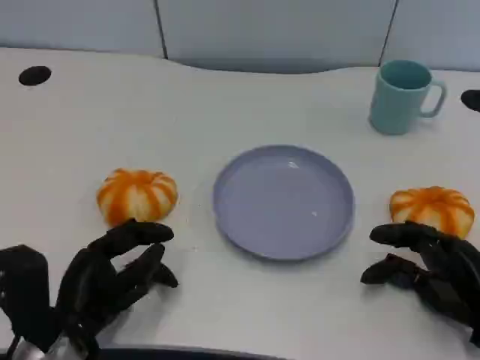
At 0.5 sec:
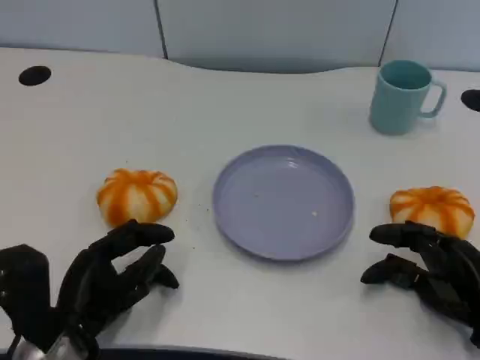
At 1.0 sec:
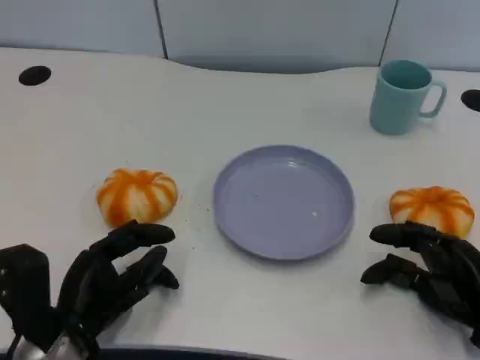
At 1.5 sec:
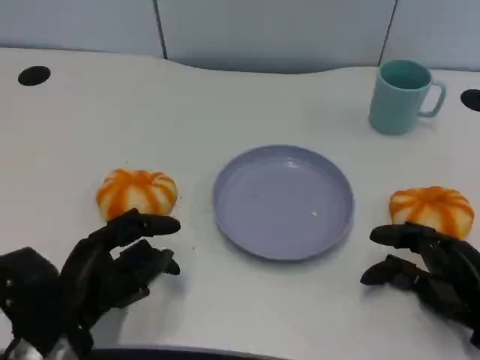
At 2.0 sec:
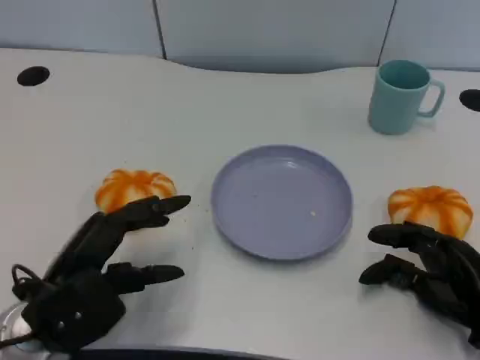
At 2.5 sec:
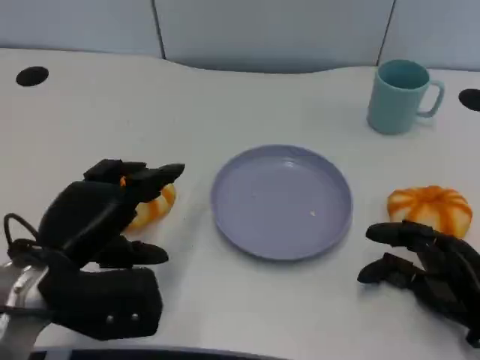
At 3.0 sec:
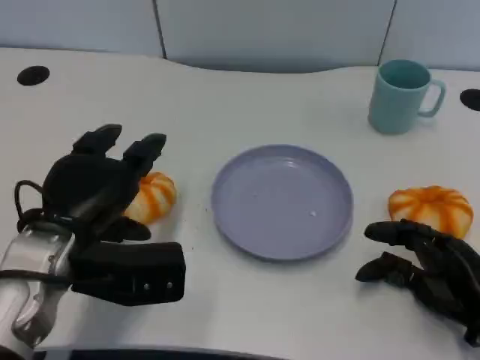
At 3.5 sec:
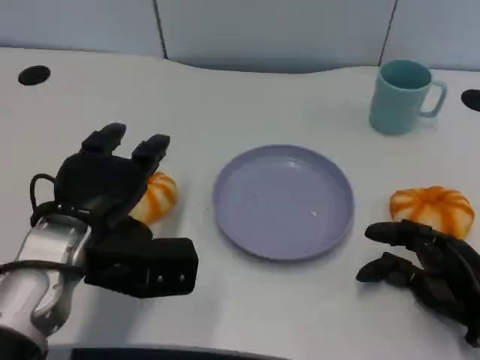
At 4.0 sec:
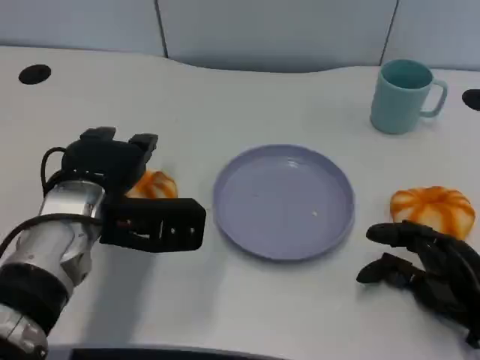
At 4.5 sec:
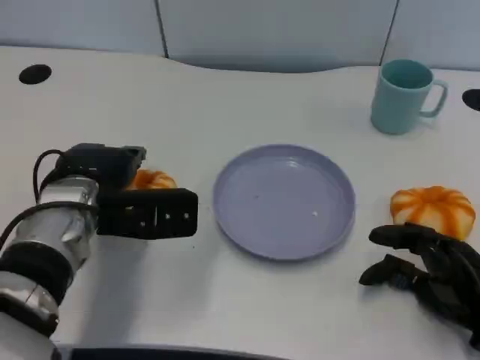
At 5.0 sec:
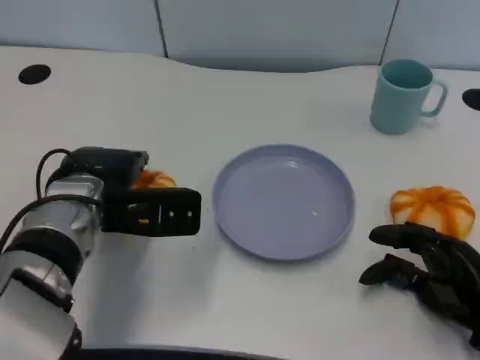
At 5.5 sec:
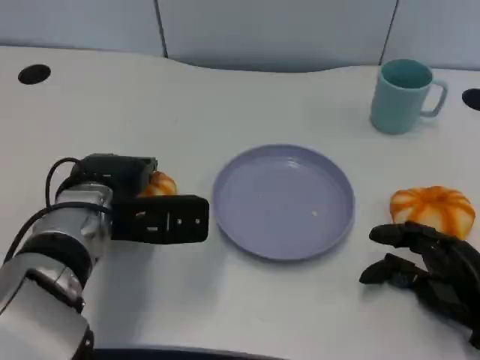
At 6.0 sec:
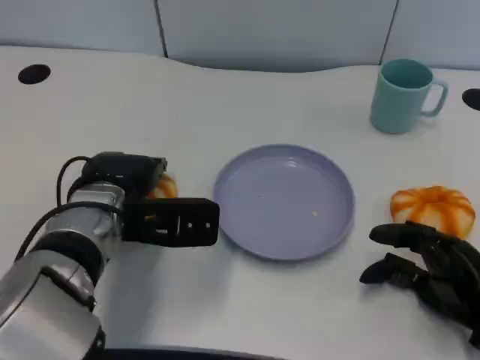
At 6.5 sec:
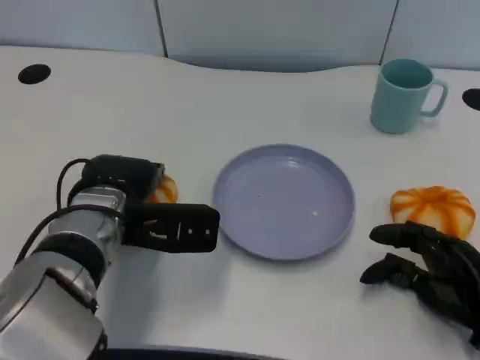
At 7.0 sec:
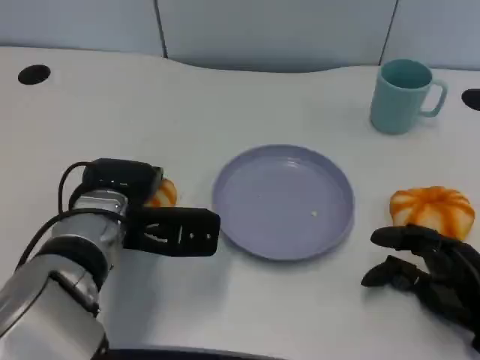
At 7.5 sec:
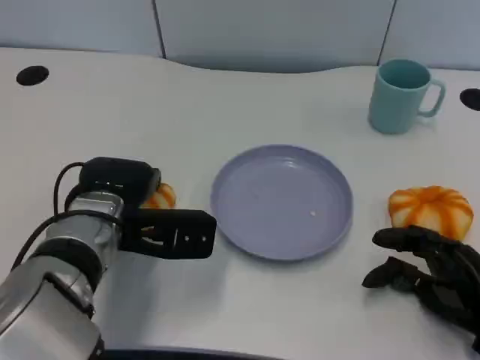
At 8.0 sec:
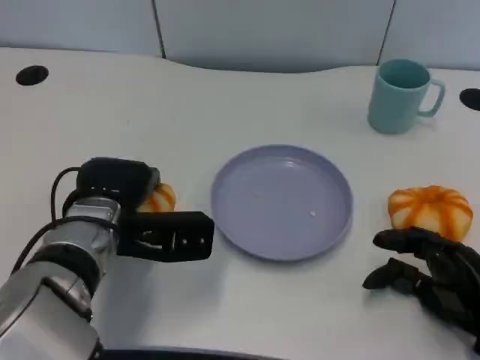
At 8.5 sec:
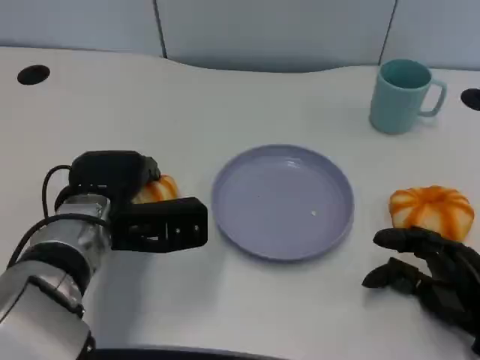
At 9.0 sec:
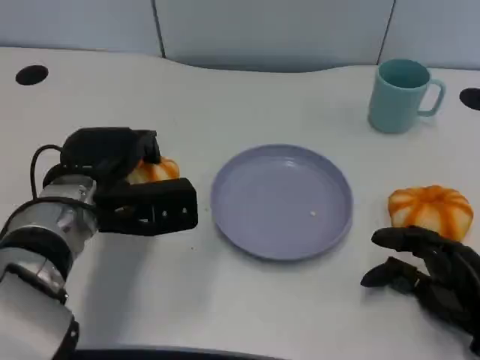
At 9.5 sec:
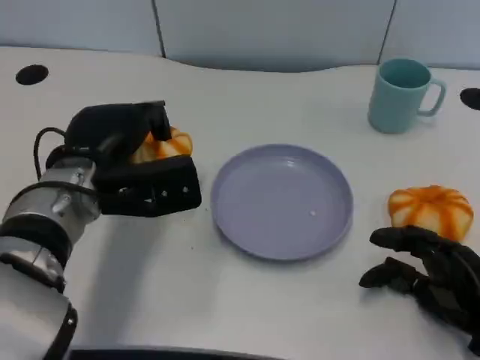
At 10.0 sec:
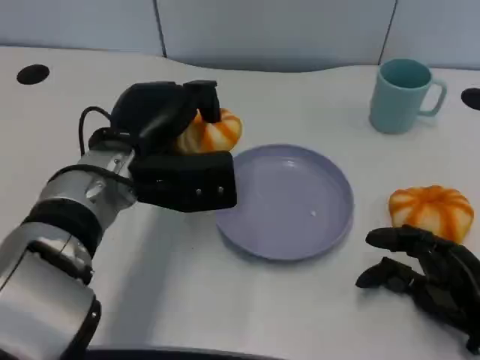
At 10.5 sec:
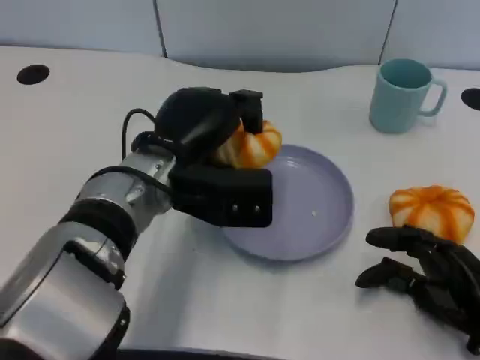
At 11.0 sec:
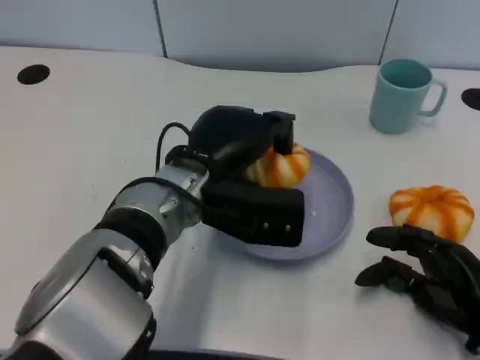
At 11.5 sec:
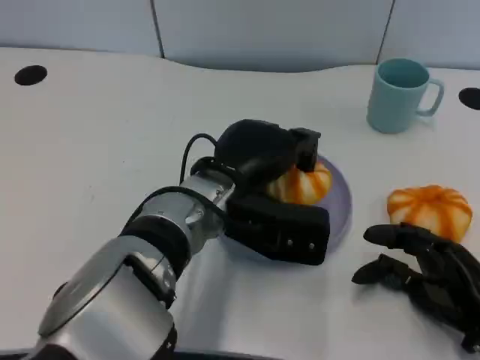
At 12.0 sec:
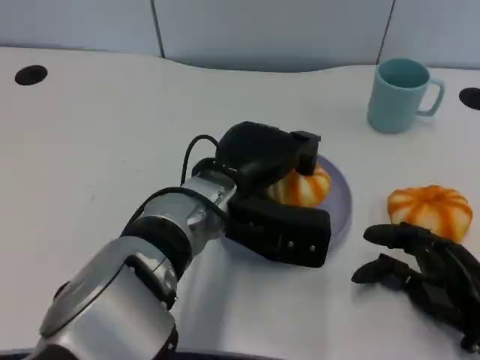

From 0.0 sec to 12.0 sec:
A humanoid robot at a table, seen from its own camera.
Task of the whole recording: Grasp the bread from the table and place it into the plate.
From 0.0 sec to 2.0 sec: The left hand moves upward, some 5 cm.
From 2.0 sec to 4.0 sec: The left hand shifts about 10 cm forward.
From 4.0 sec to 8.0 sec: There are only small adjustments of the hands.
From 8.0 sec to 10.0 sec: The left hand travels upward by some 5 cm.
From 10.0 sec to 12.0 sec: The left hand goes about 10 cm to the right.

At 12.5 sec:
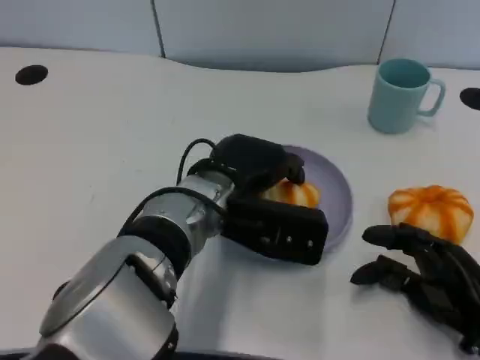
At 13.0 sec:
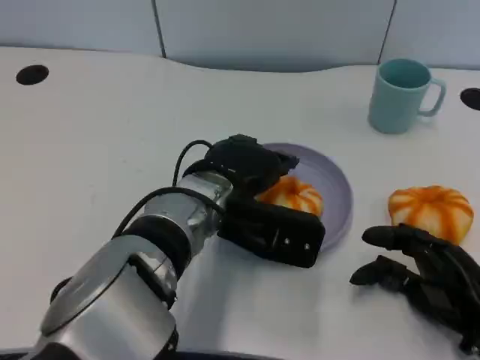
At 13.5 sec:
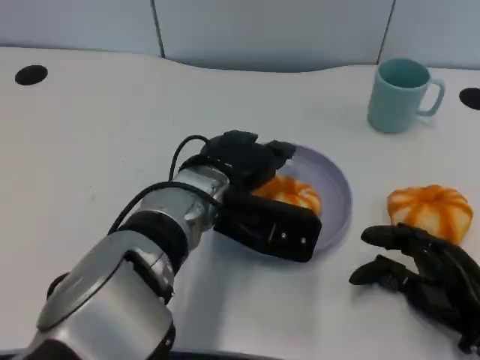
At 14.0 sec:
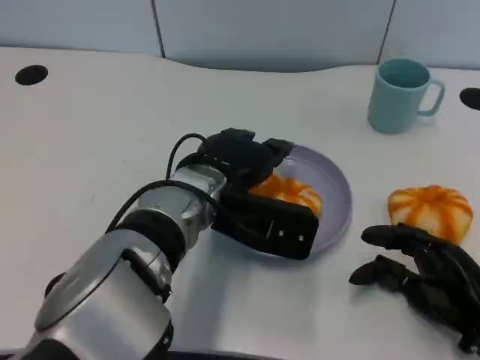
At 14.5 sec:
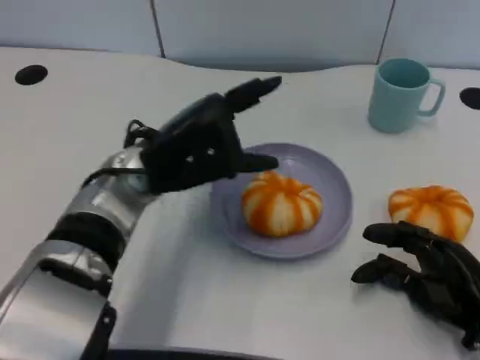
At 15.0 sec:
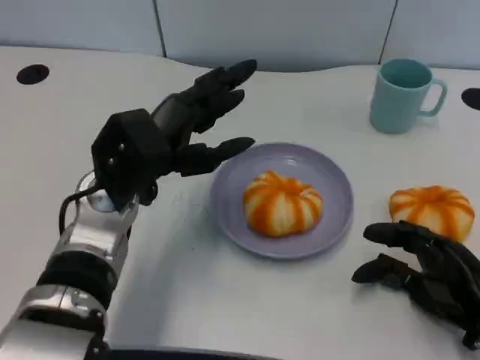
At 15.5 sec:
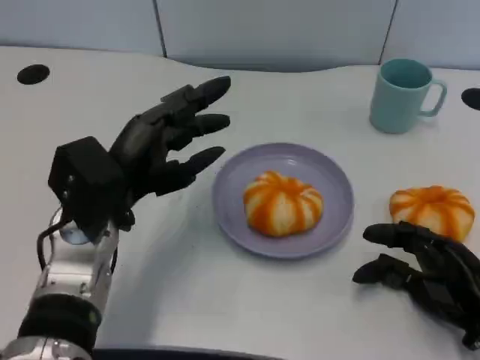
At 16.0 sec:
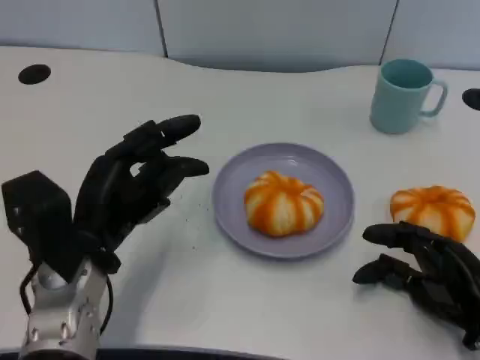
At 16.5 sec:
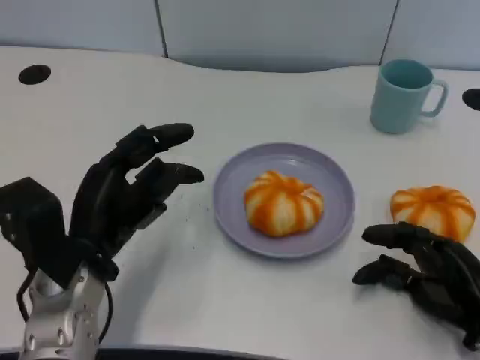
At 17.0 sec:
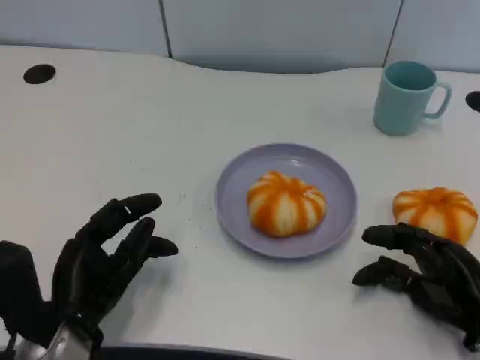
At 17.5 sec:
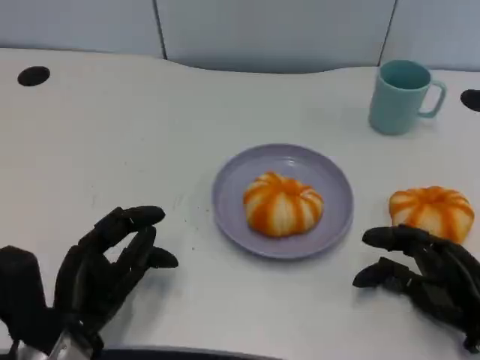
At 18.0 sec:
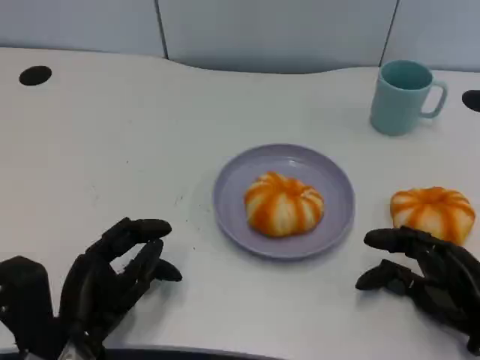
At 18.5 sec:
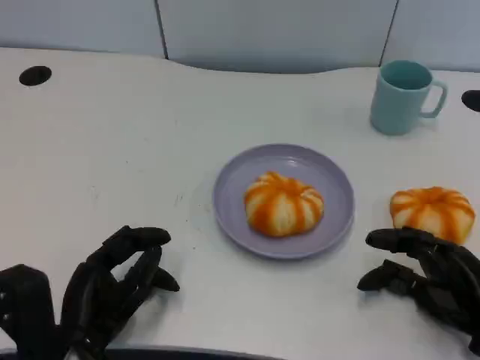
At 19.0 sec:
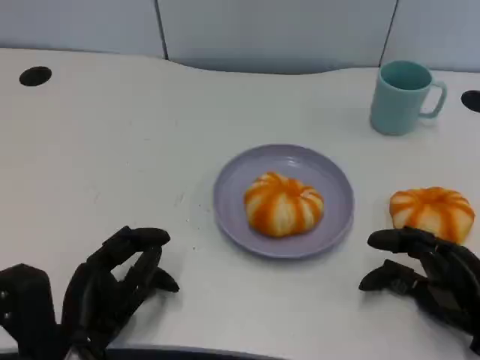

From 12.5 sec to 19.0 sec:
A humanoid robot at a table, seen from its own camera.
Task of the whole recording: Grasp the bread from the table and place it into the plate.
From 12.5 sec to 14.5 sec: The left hand goes some 10 cm to the left.
From 14.5 sec to 17.0 sec: The left hand goes some 20 cm backward, downward and to the left.
From 17.0 sec to 19.0 sec: The hands make only small movements.

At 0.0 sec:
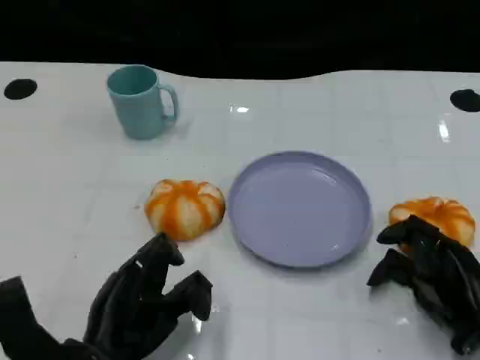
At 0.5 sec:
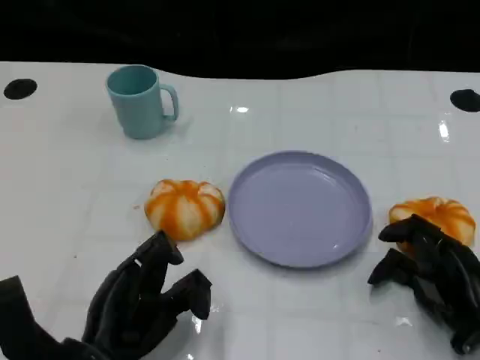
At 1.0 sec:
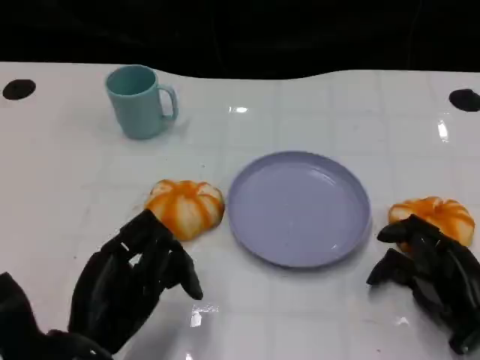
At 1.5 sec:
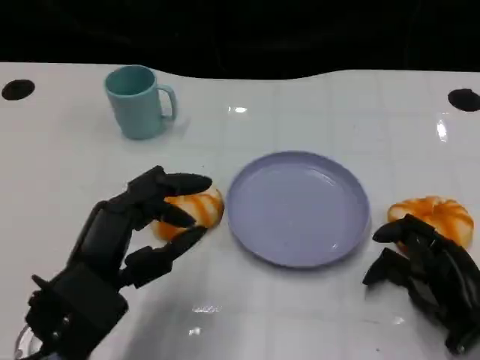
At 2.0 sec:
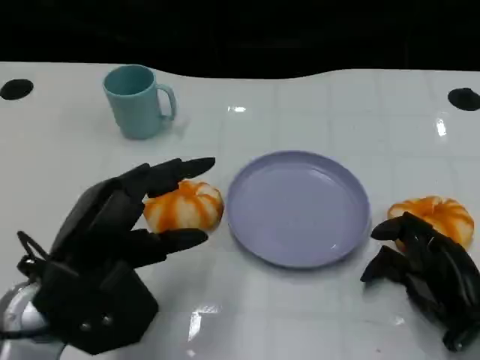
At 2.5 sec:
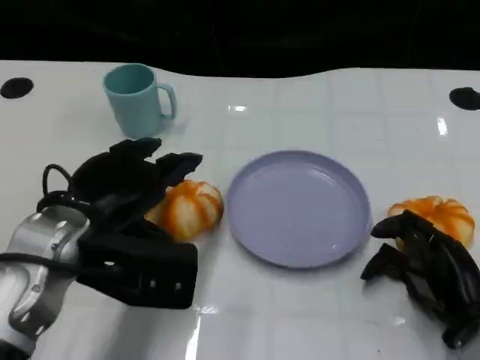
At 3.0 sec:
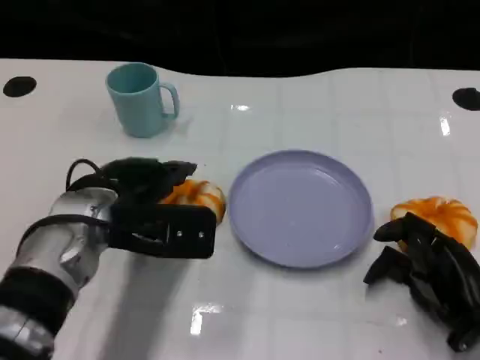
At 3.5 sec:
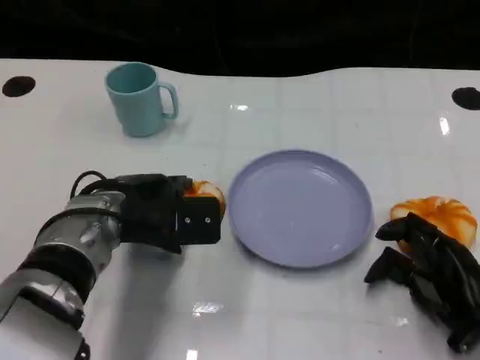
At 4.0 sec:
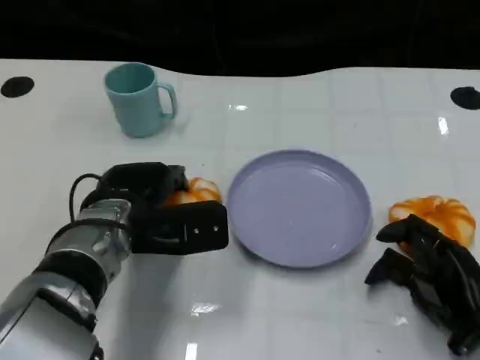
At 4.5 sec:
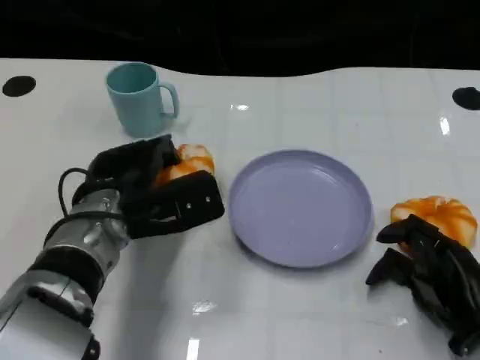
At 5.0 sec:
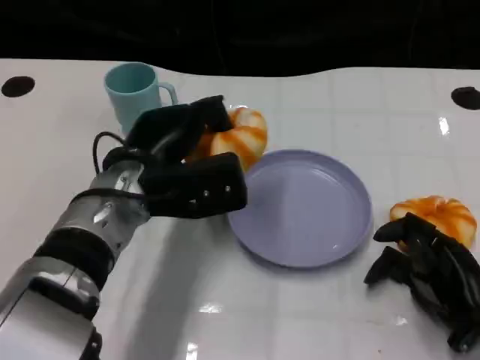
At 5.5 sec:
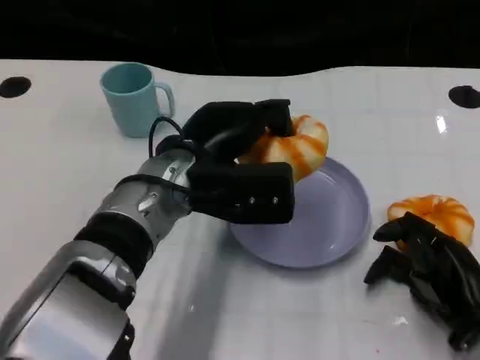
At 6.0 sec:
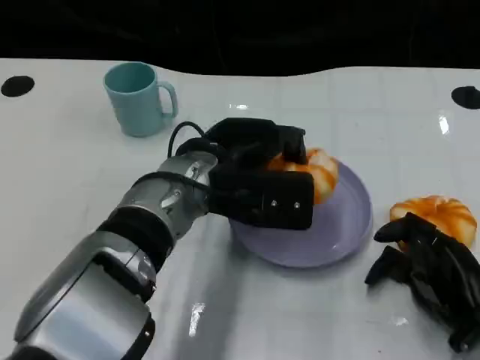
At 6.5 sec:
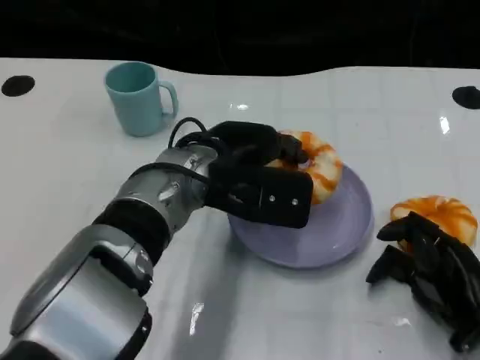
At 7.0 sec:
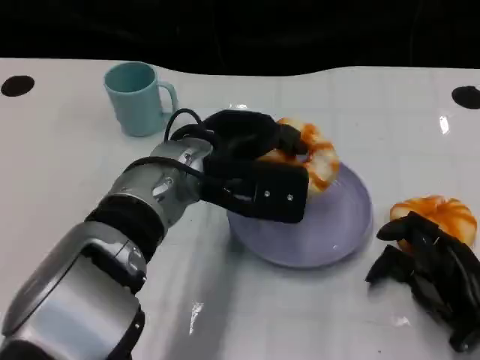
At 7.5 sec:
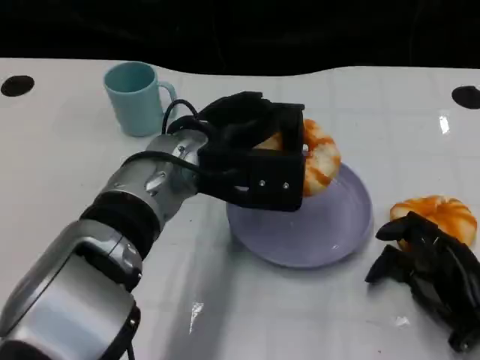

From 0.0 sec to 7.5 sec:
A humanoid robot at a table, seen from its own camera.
Task of the whole recording: Grasp the bread from the table and place it into the plate.
From 0.0 sec to 2.0 sec: The left hand shifts some 10 cm upward.
From 2.0 sec to 4.0 sec: The left hand goes roughly 10 cm forward.
From 4.0 sec to 5.5 sec: The left hand travels to the right and upward by approximately 10 cm.
From 5.5 sec to 7.5 sec: The hands move only a little.
